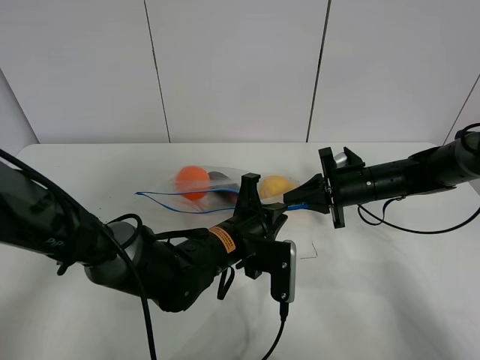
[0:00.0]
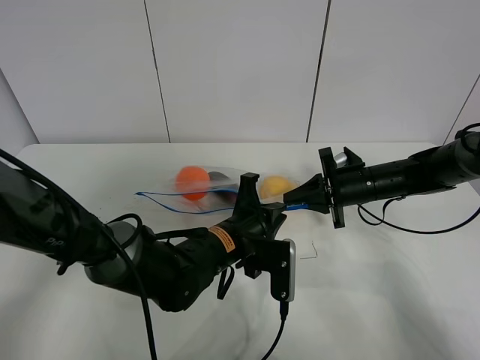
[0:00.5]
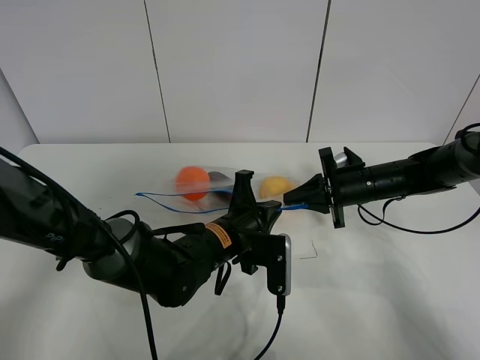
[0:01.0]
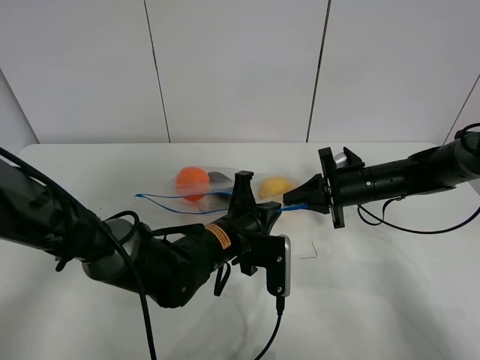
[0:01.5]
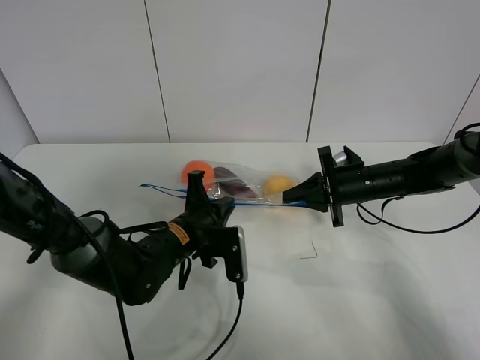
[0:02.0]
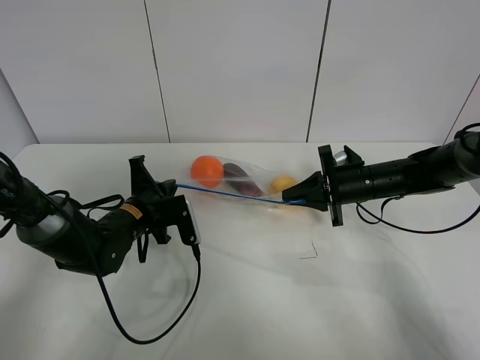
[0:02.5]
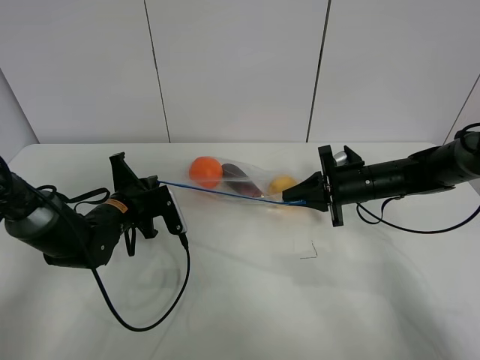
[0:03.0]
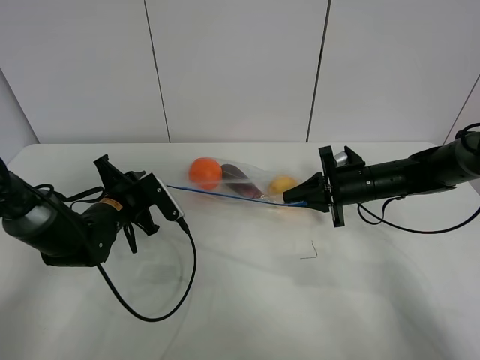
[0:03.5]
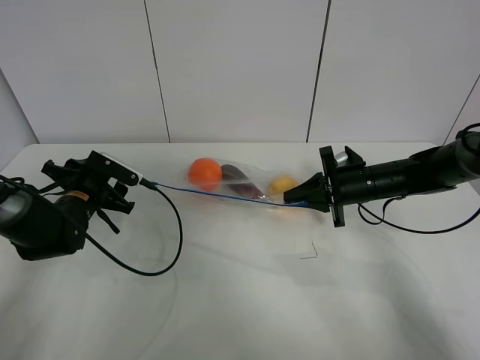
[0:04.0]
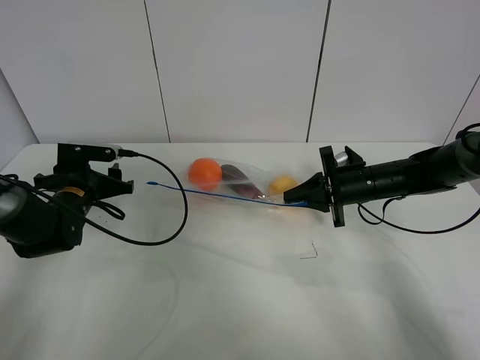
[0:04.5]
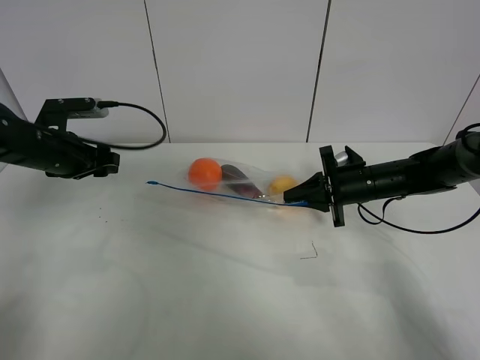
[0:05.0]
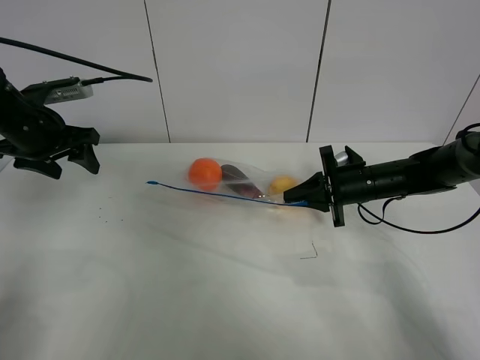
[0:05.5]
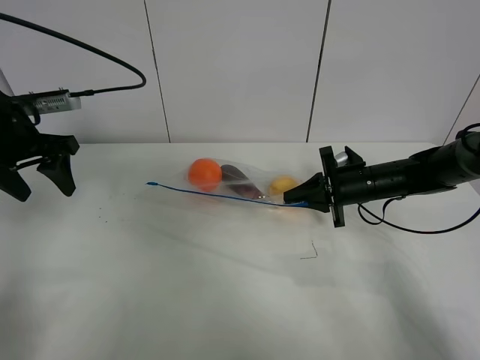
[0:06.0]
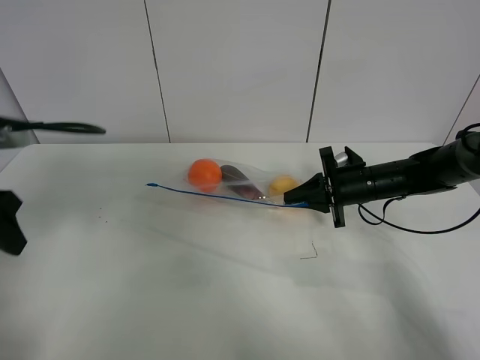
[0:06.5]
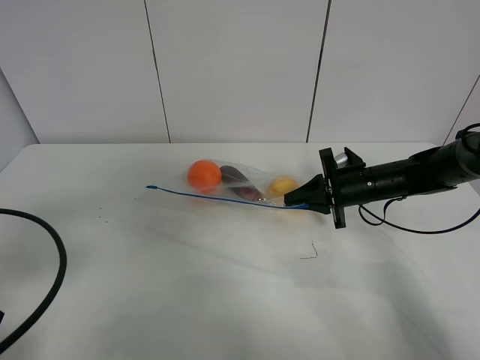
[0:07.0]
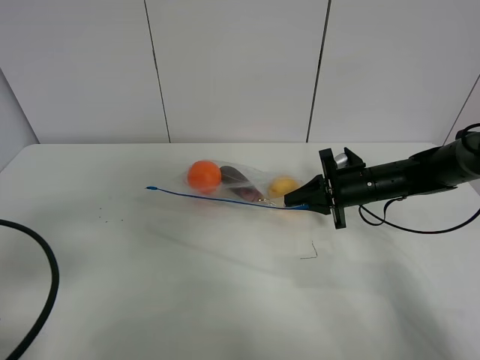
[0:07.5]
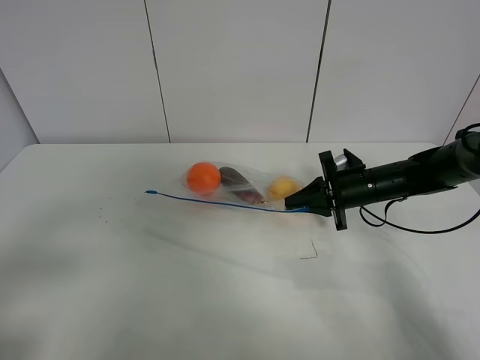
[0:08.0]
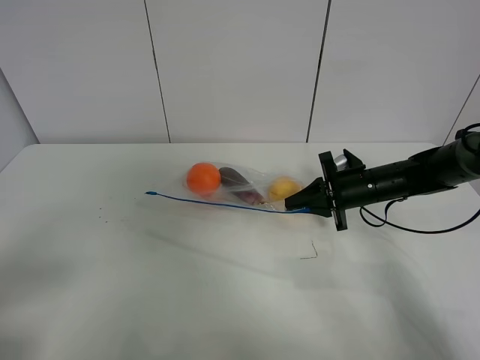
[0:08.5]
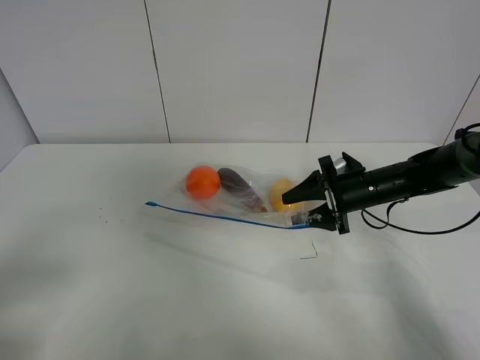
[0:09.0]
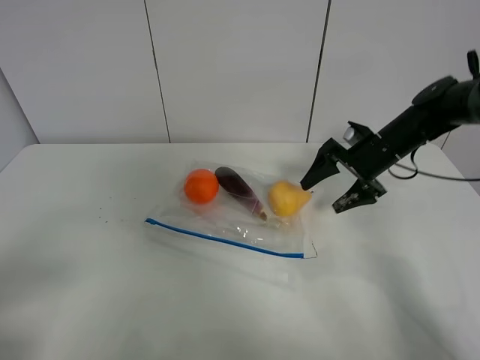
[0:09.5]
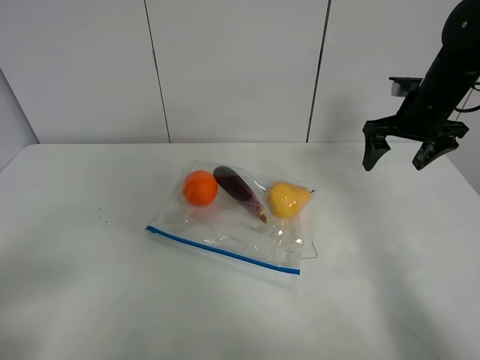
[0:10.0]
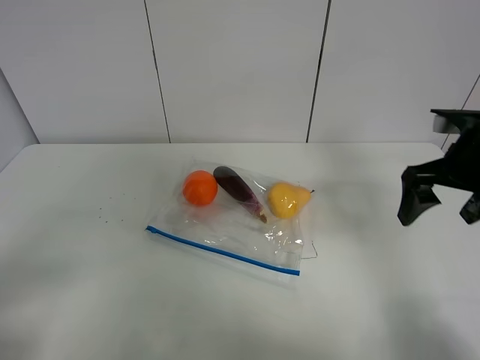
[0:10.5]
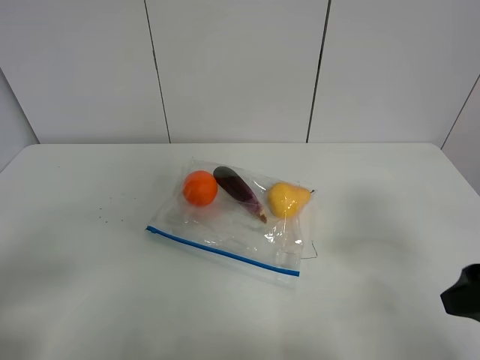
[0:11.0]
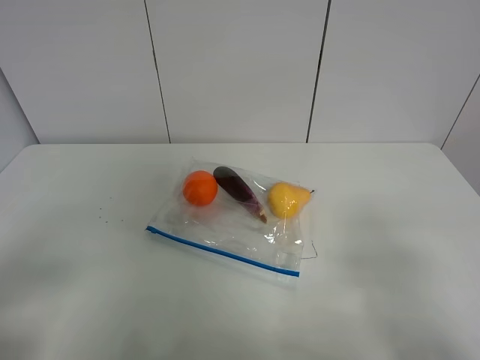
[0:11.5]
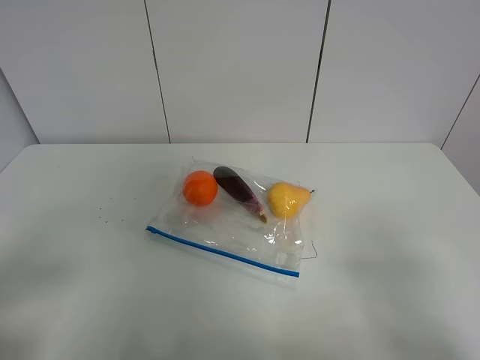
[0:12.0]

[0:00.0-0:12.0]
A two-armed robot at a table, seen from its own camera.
Step, 0:00.0 to 0:03.5: Pull the fruit bag with left gripper.
0:00.0 to 0:02.0: The left gripper is displaced to the left by about 10 cm.
0:02.0 to 0:04.0: The left gripper goes roughly 15 cm to the left, and opens up.
0:04.0 to 0:06.0: The left gripper goes some 15 cm upward.
0:06.0 to 0:08.0: The left gripper heads backward, covering roughly 30 cm.
0:08.0 to 0:10.0: The right gripper shifts approximately 15 cm upward and to the right, and opens up.
0:10.0 to 0:12.0: The right gripper shifts approximately 40 cm backward.
